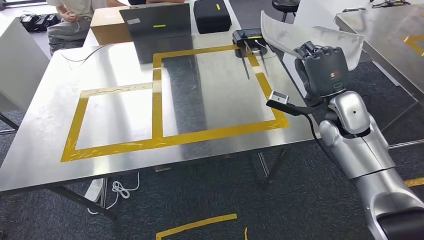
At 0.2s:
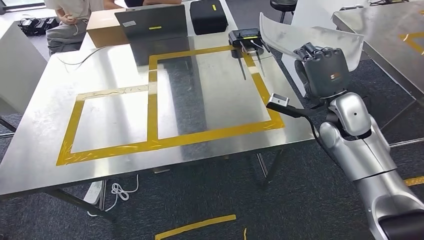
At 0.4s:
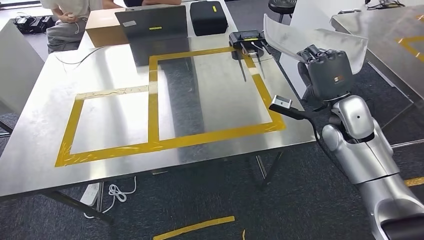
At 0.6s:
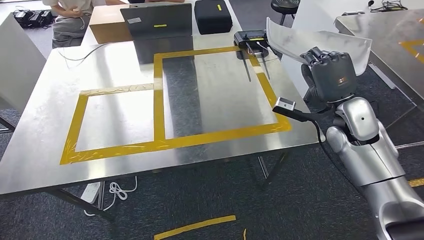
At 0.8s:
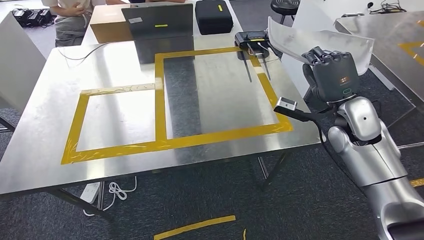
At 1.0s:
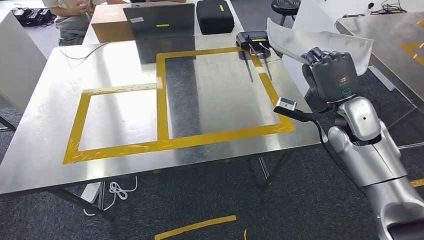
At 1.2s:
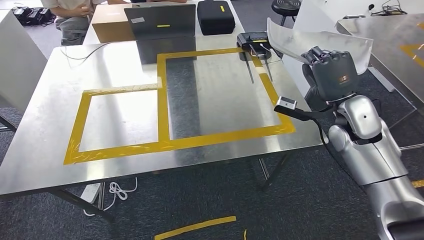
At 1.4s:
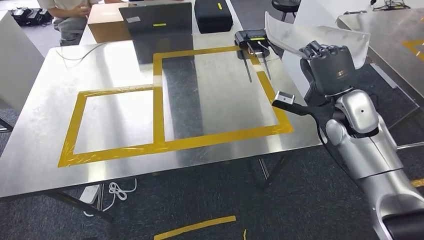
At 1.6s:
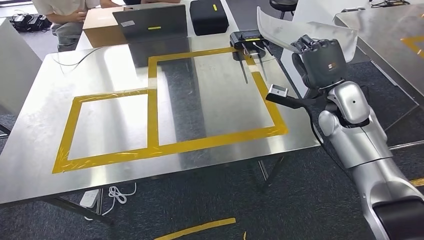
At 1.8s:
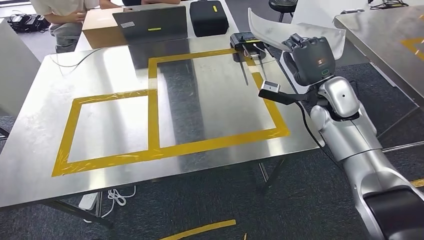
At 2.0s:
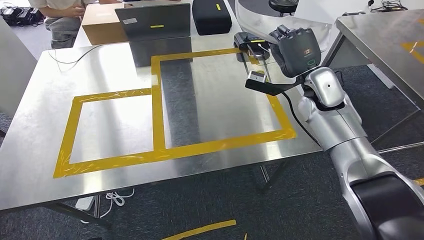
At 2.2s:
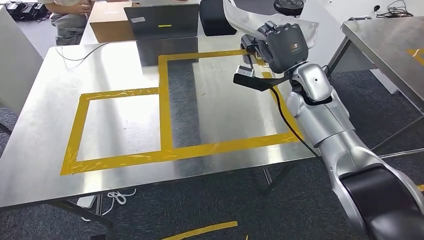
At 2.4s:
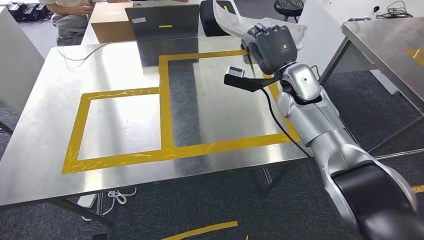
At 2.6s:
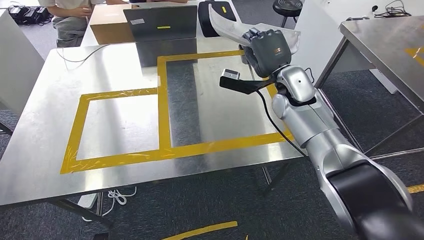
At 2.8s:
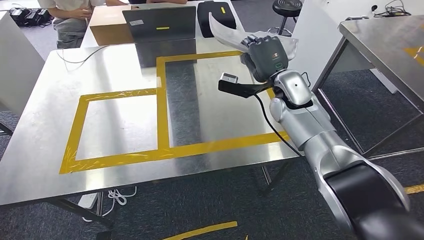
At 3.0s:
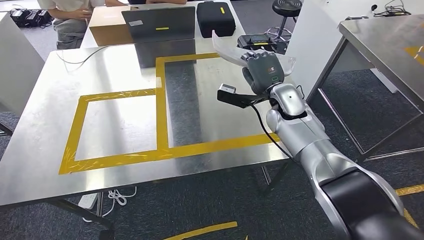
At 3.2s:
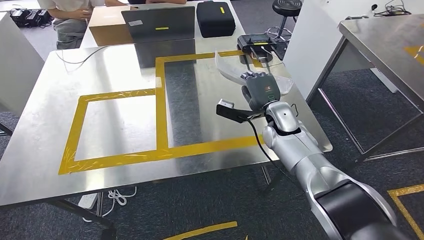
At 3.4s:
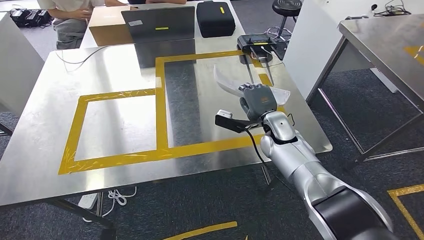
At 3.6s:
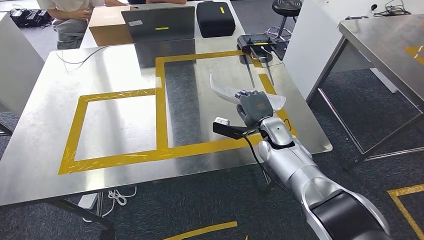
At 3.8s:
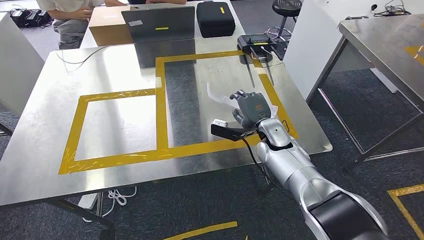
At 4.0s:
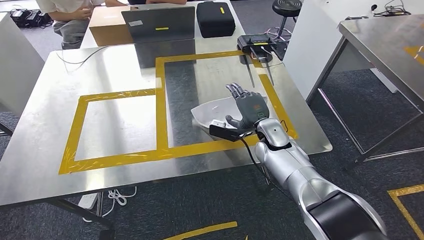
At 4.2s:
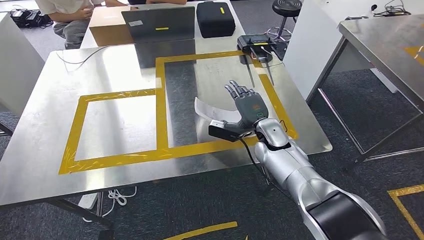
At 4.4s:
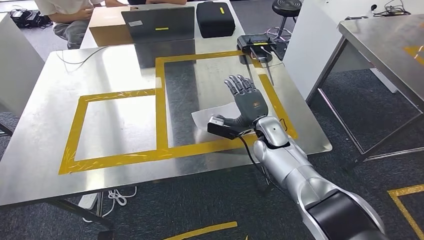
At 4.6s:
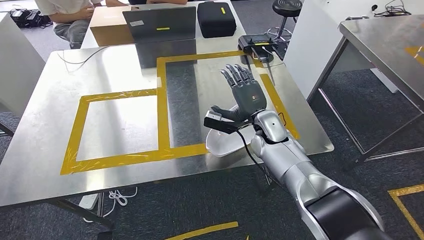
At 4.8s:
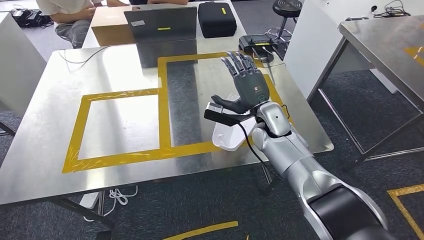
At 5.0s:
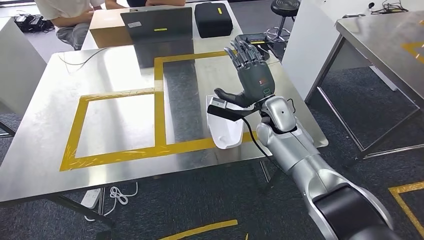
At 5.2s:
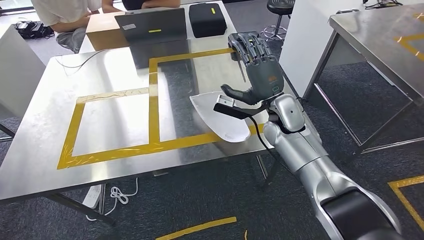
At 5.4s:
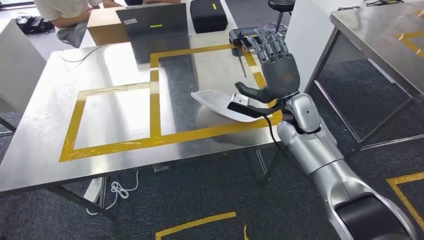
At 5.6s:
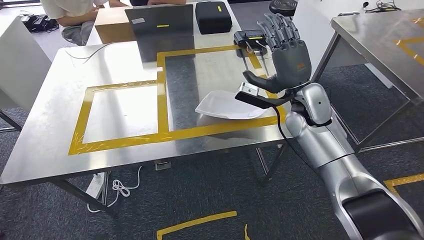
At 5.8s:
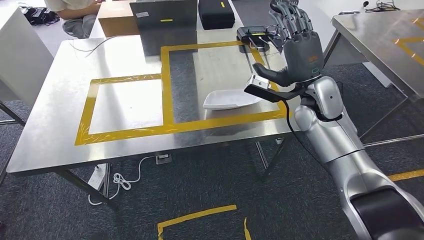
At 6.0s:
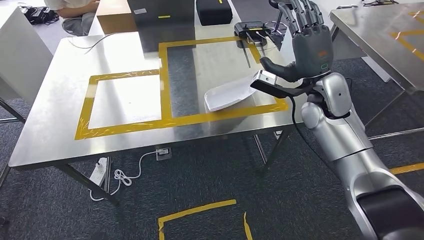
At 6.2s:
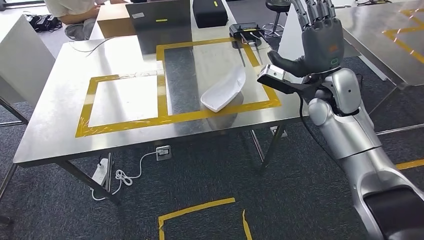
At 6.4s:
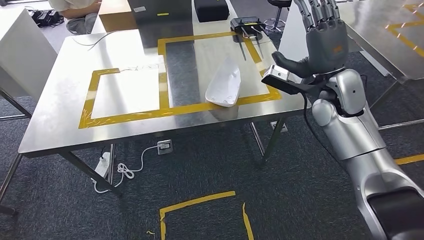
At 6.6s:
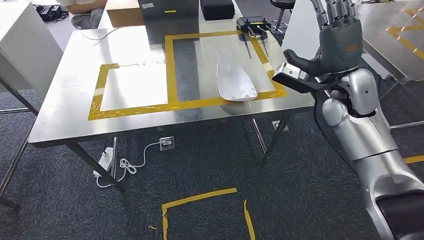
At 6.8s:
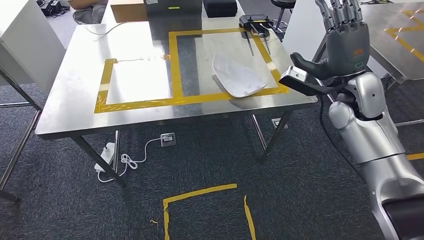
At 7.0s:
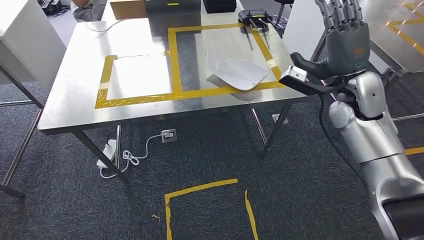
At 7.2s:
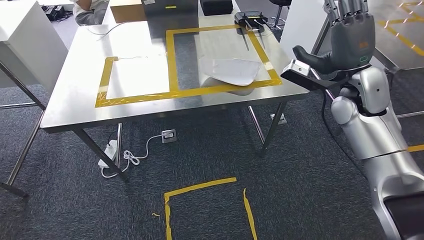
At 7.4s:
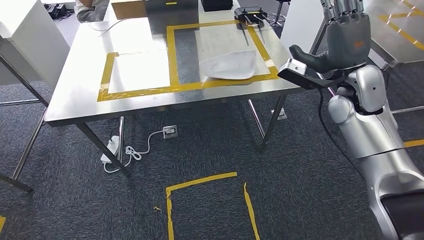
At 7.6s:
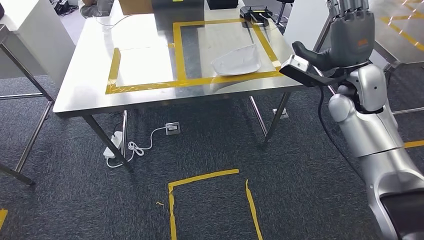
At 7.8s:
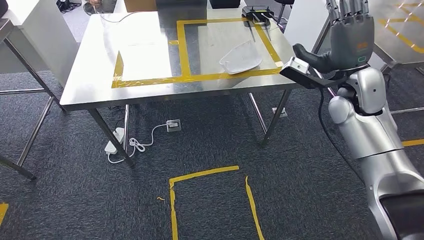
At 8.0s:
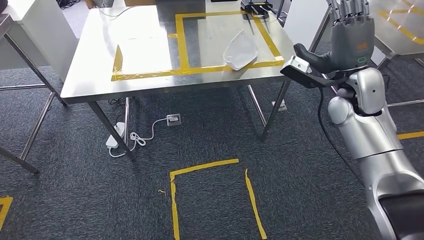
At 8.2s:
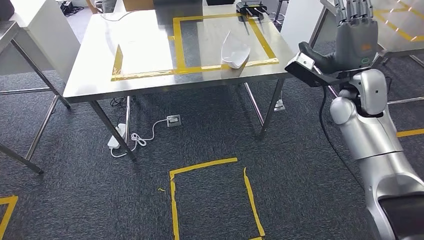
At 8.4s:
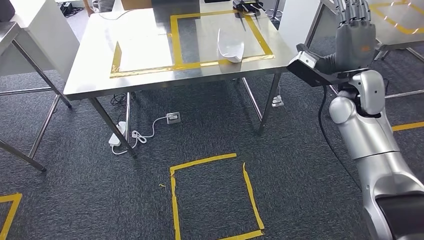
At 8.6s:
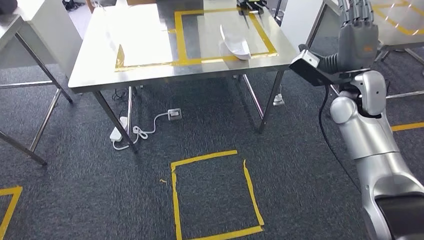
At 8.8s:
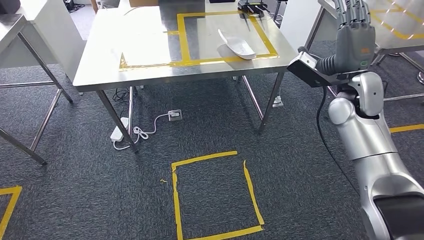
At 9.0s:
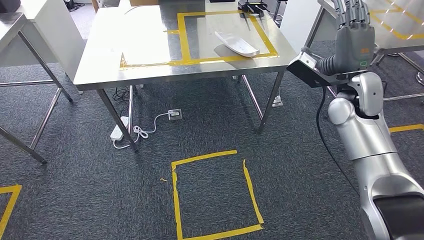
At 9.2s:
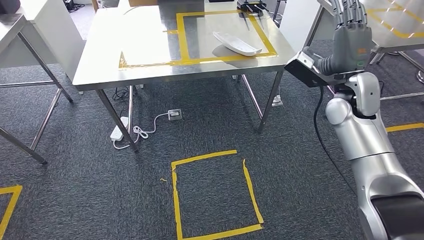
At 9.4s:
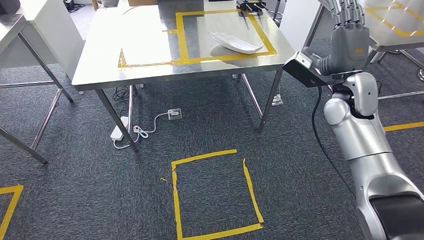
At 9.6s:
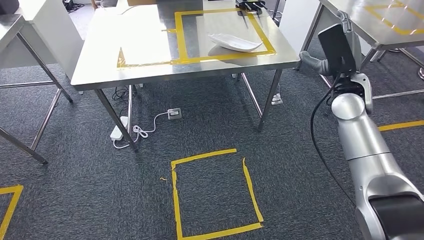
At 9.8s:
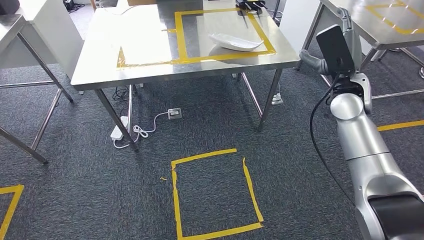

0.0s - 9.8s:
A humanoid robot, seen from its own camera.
Step, 0.0s - 5.6s: Insert the small component into the corresponding slot on the workbench.
Step, 6.2s - 9.8s: Move to the initial position of the workbench.
2.8s - 4.2s: The right hand shifts some 15 cm downward and backward.

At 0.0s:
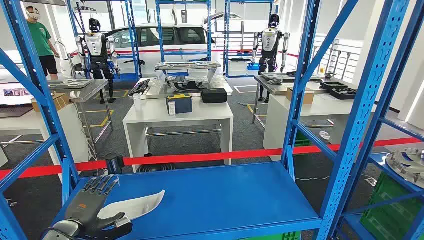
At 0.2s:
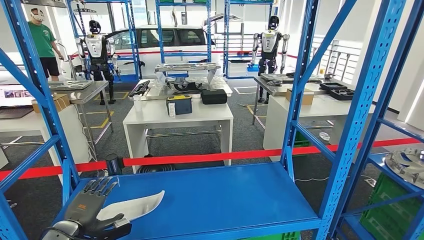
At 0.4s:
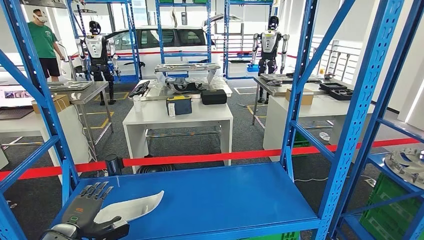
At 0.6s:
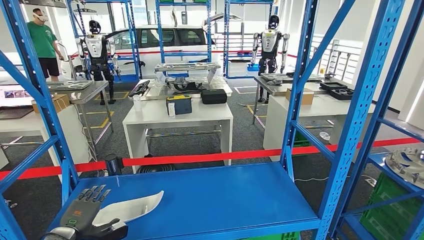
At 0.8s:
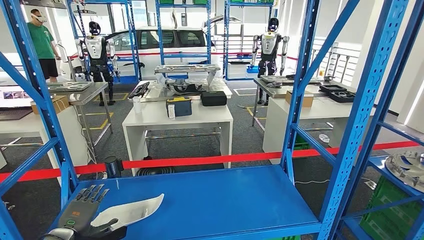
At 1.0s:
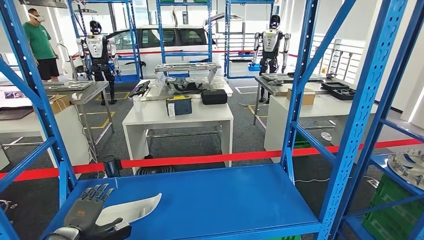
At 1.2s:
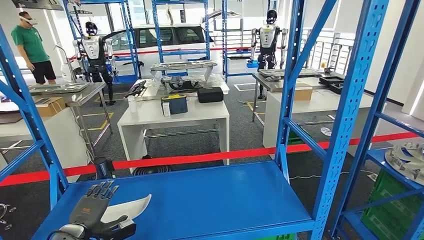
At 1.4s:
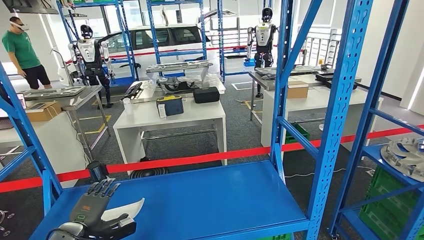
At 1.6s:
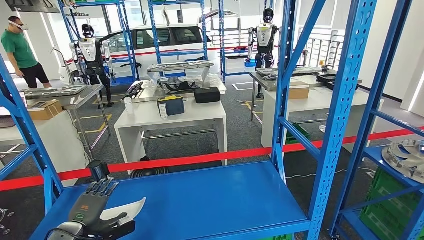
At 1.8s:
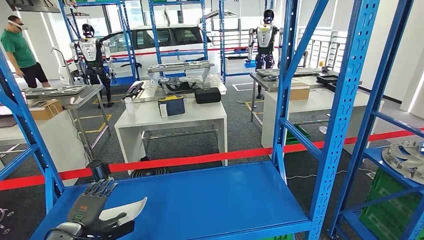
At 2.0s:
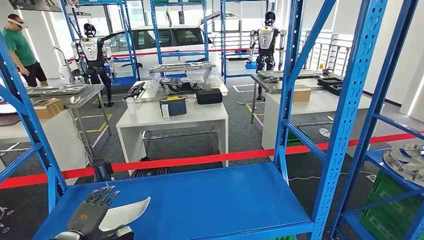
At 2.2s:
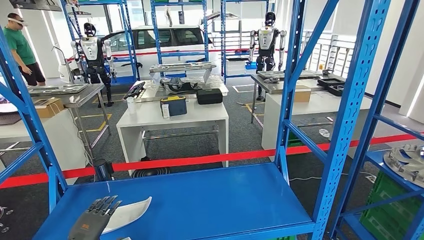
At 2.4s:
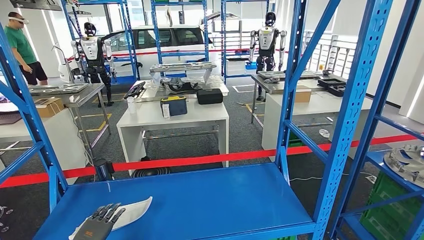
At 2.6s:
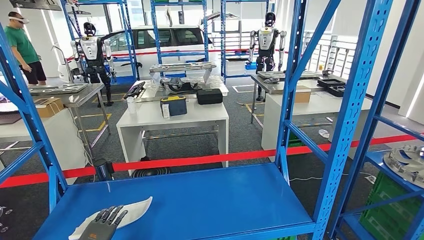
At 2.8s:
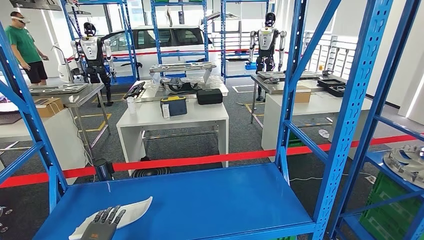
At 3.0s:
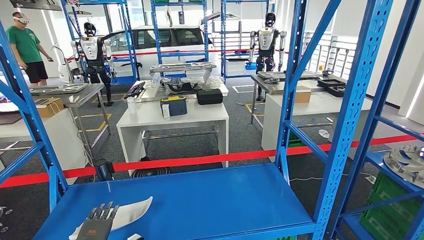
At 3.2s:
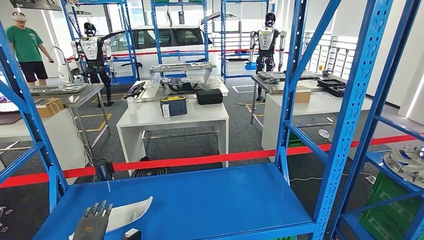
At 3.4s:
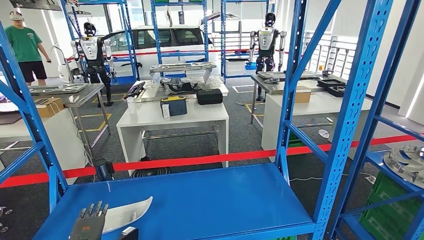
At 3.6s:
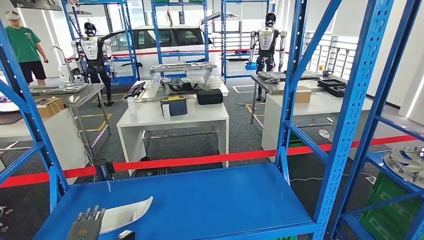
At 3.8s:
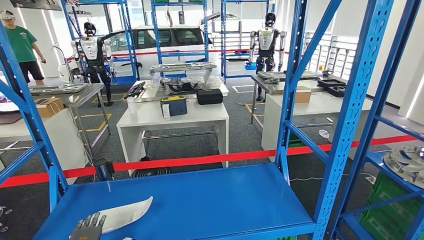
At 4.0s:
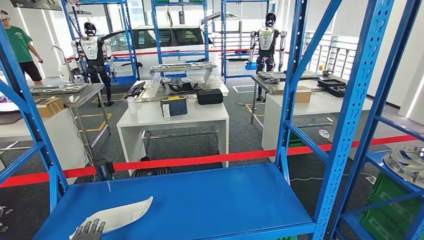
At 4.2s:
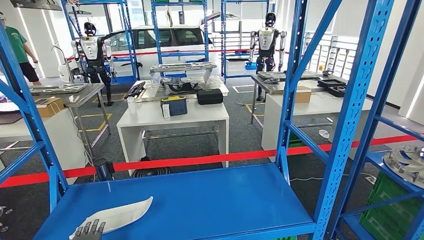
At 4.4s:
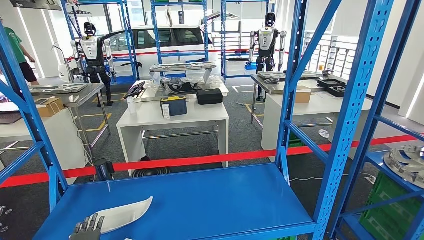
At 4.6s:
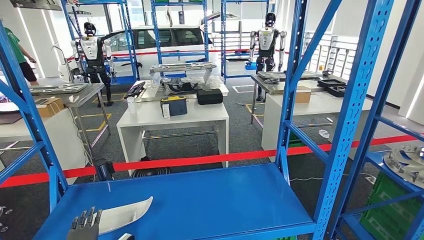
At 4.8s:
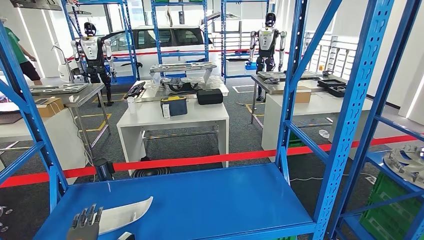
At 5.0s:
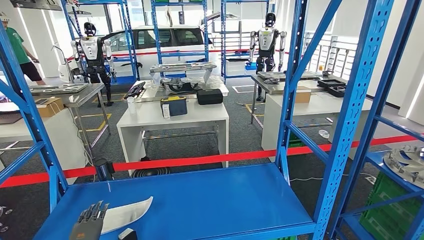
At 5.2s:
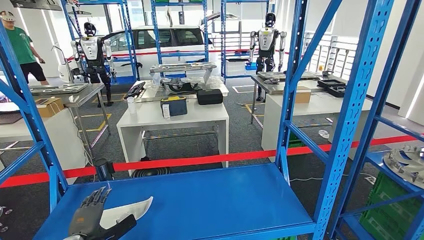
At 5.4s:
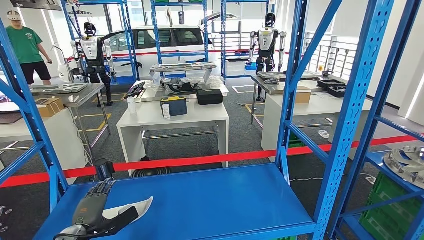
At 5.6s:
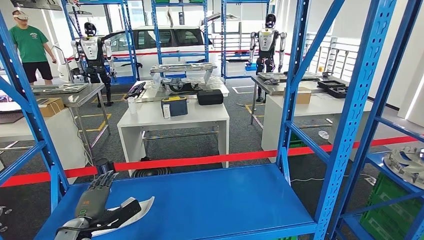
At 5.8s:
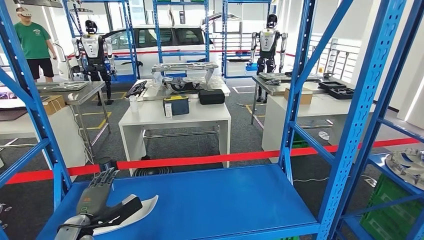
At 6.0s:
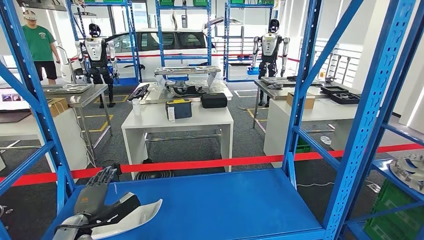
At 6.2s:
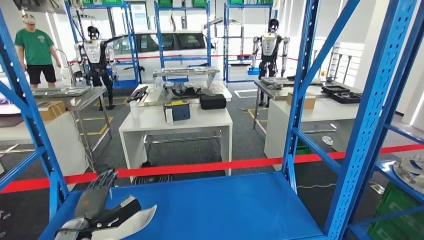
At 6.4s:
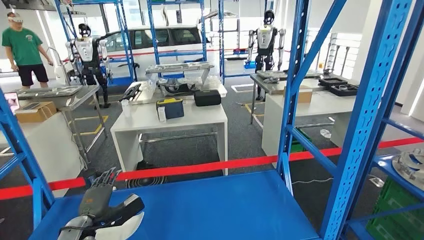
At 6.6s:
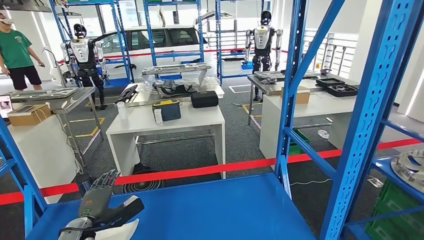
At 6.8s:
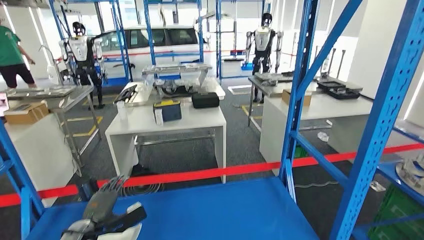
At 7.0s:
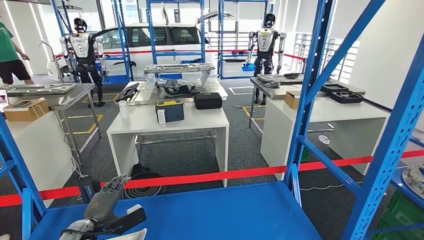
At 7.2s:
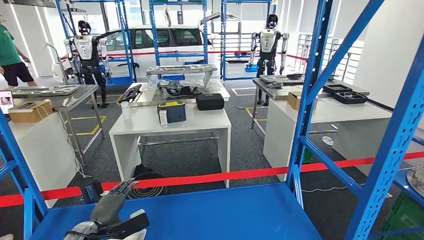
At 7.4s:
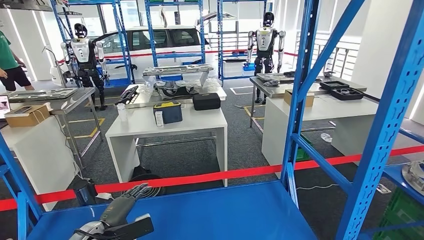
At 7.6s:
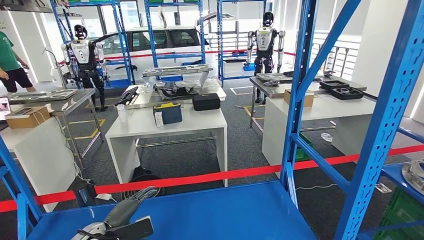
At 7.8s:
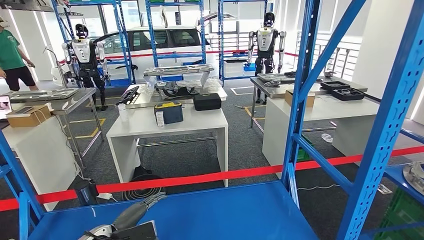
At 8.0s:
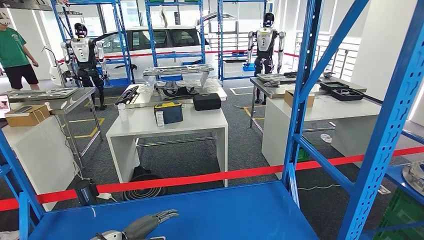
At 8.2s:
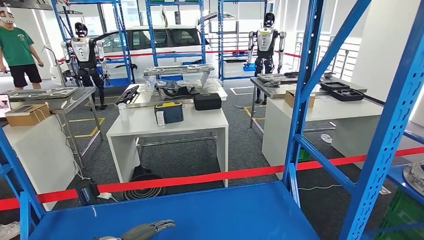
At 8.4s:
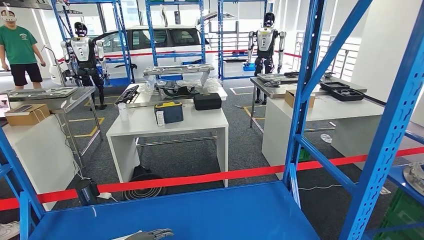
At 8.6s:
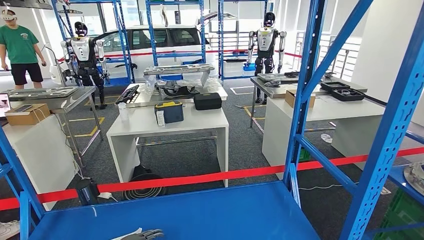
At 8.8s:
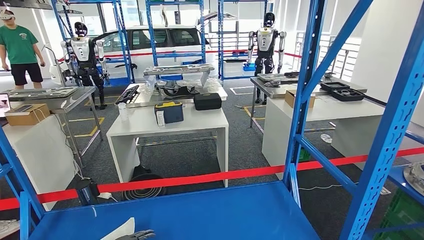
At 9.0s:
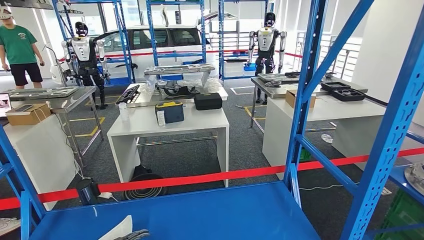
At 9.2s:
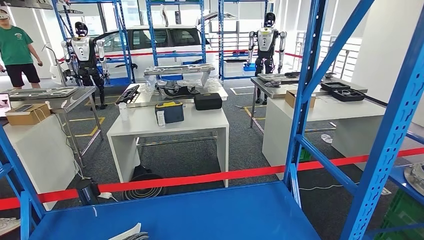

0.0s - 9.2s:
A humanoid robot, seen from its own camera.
3.0s - 4.6s: The hands stay close to where they were, moving slightly.
